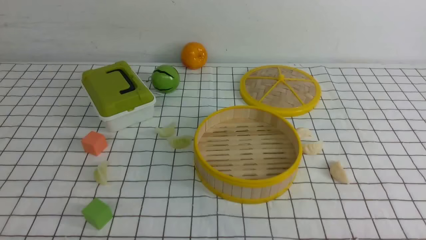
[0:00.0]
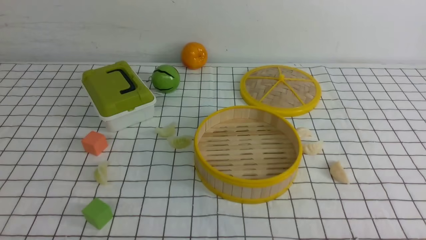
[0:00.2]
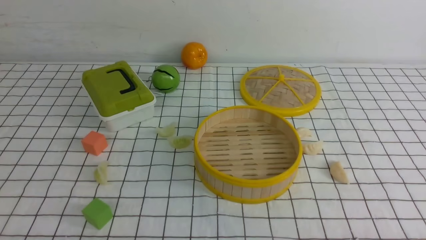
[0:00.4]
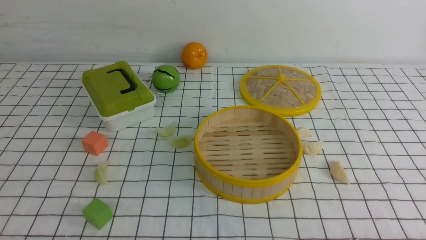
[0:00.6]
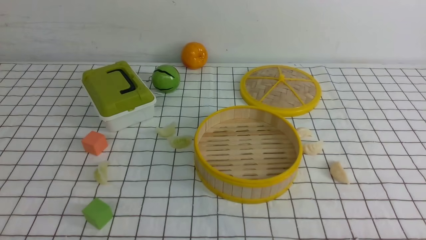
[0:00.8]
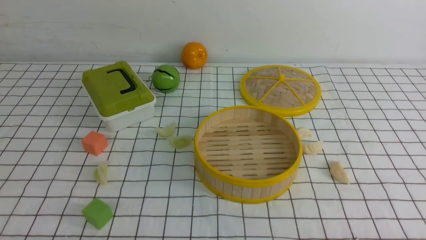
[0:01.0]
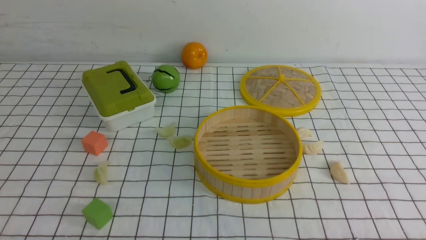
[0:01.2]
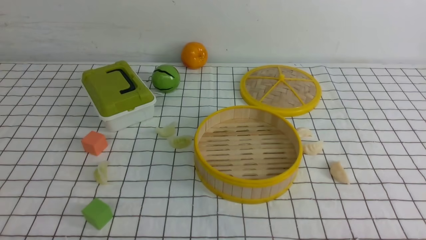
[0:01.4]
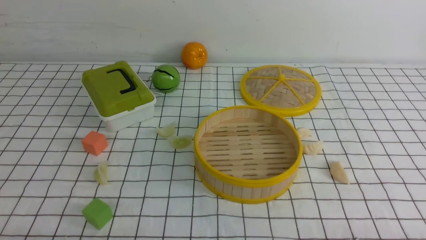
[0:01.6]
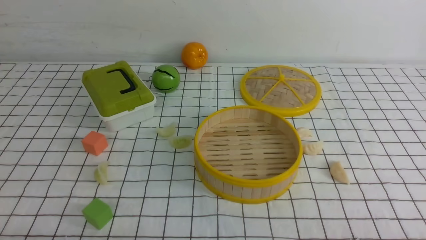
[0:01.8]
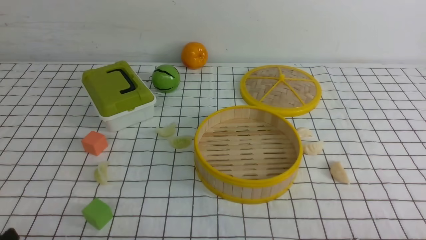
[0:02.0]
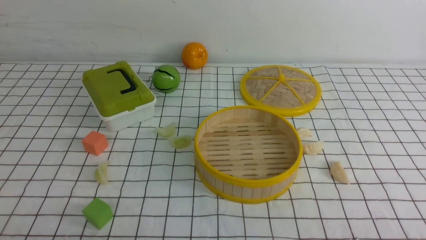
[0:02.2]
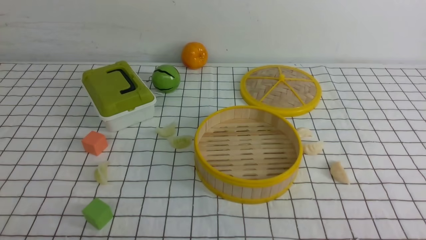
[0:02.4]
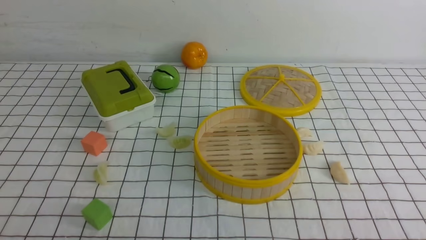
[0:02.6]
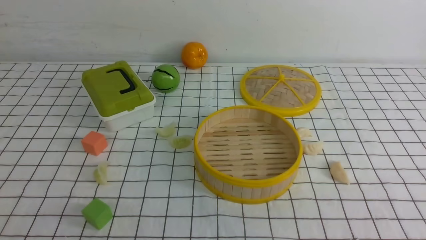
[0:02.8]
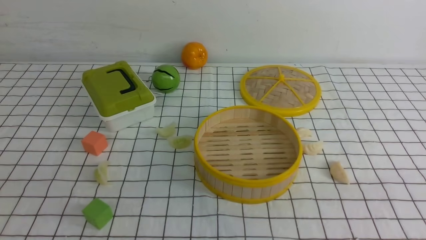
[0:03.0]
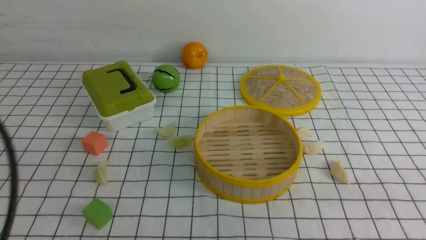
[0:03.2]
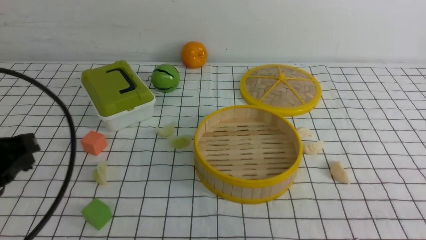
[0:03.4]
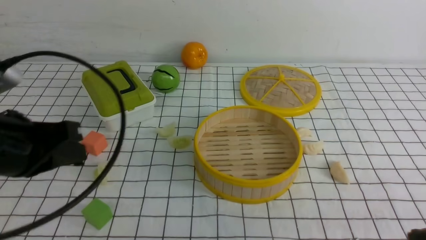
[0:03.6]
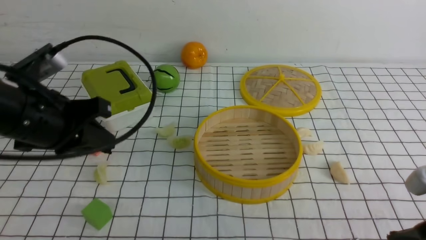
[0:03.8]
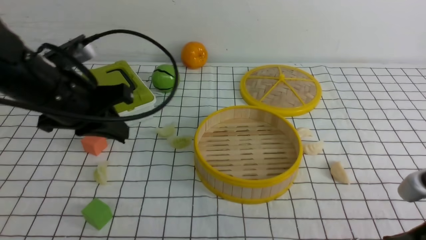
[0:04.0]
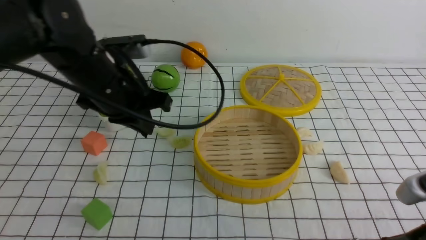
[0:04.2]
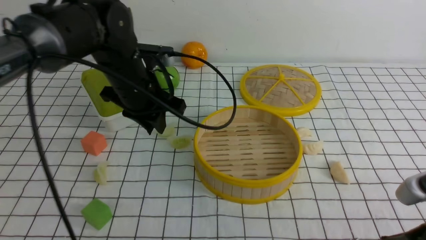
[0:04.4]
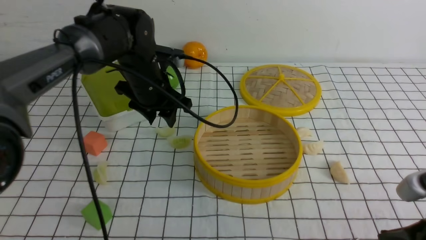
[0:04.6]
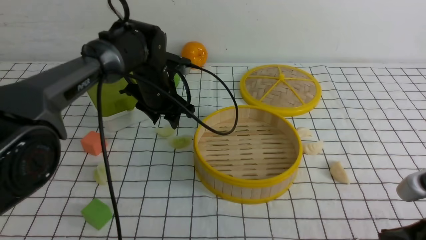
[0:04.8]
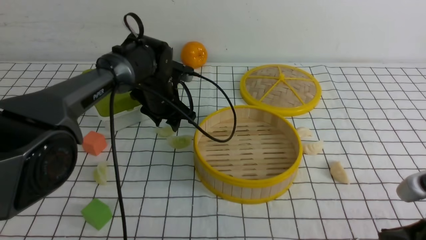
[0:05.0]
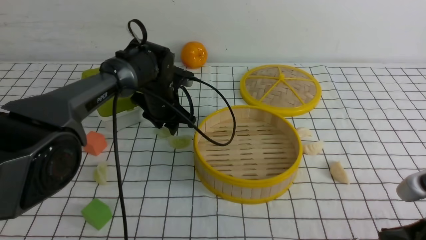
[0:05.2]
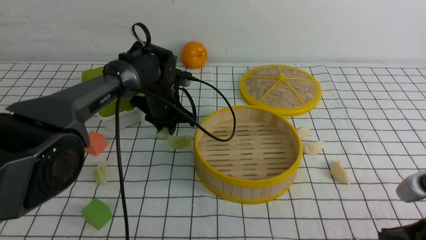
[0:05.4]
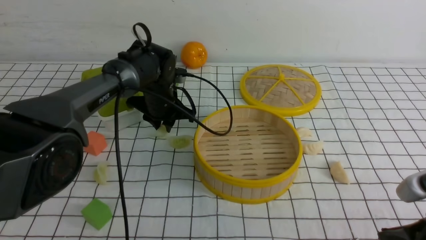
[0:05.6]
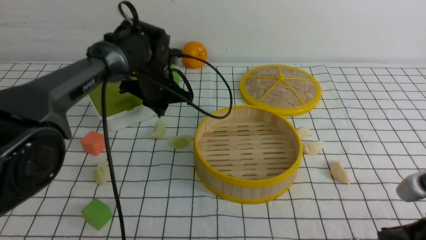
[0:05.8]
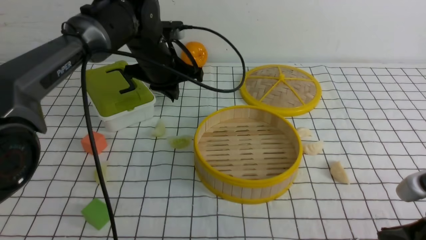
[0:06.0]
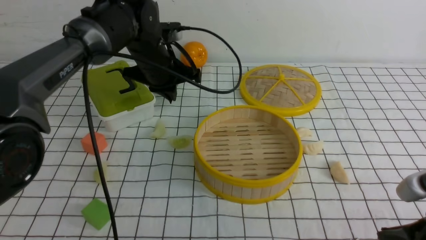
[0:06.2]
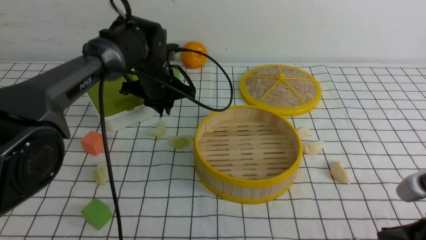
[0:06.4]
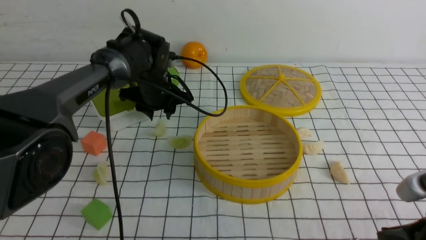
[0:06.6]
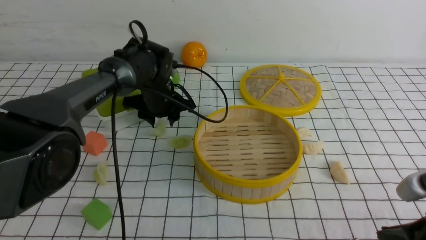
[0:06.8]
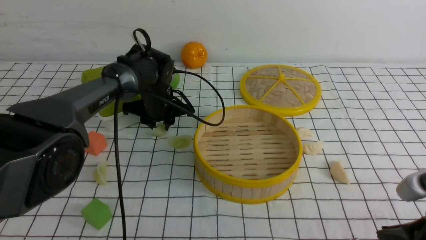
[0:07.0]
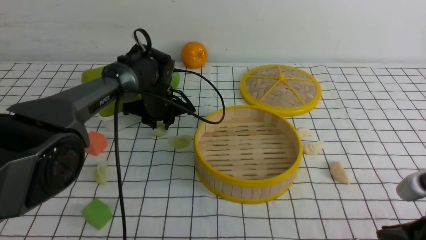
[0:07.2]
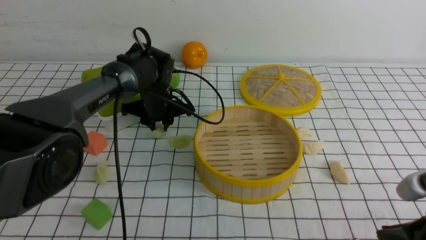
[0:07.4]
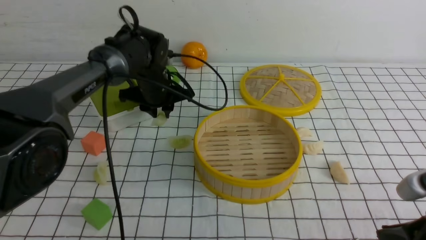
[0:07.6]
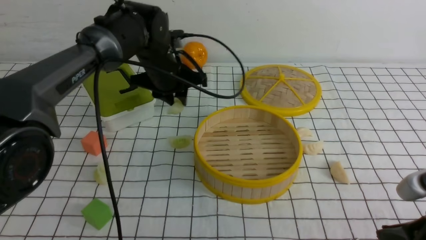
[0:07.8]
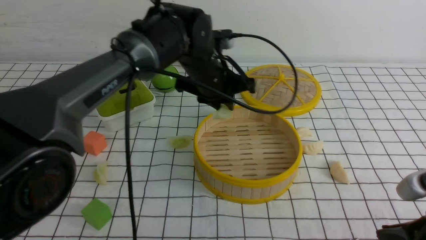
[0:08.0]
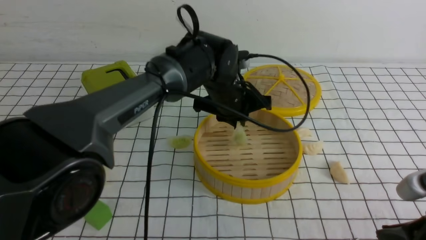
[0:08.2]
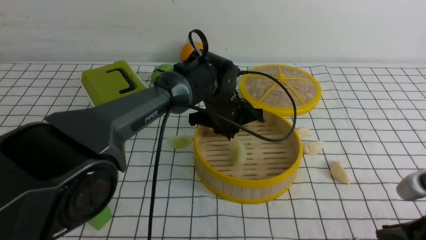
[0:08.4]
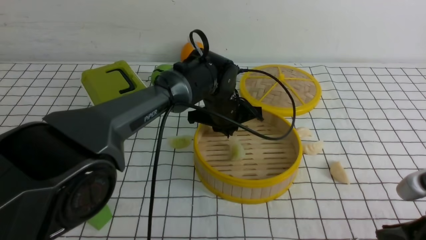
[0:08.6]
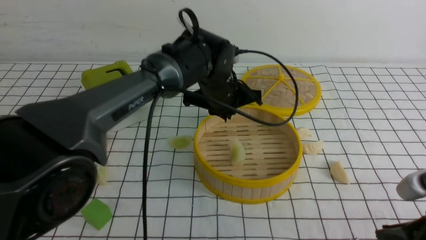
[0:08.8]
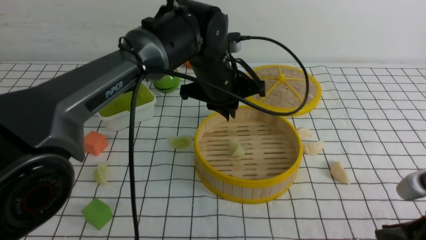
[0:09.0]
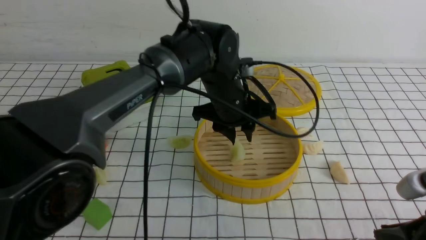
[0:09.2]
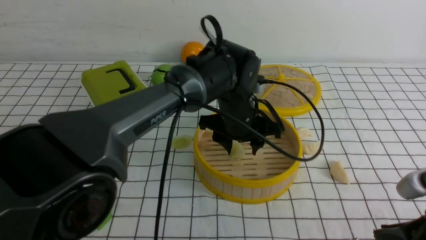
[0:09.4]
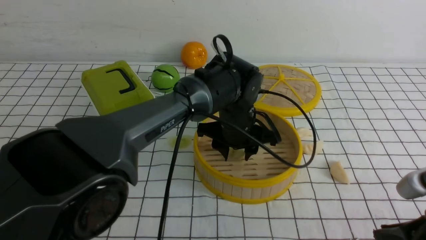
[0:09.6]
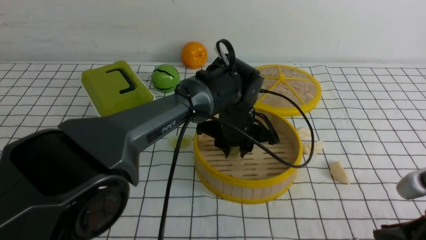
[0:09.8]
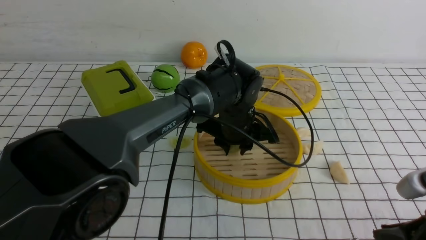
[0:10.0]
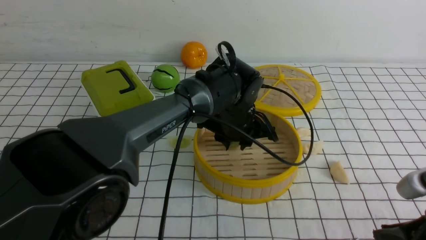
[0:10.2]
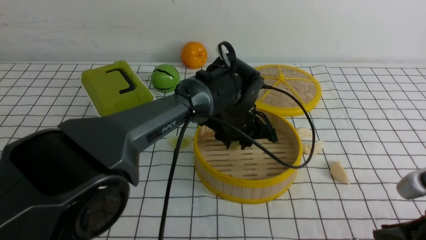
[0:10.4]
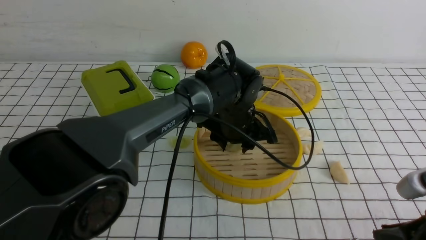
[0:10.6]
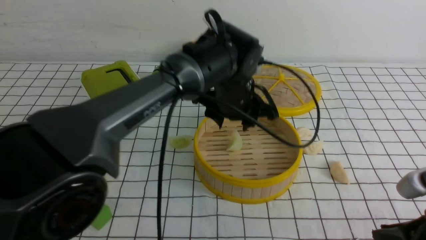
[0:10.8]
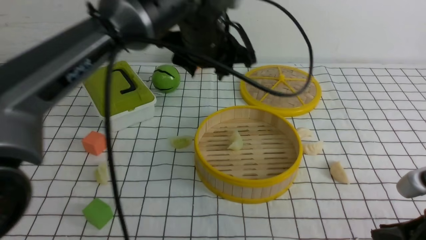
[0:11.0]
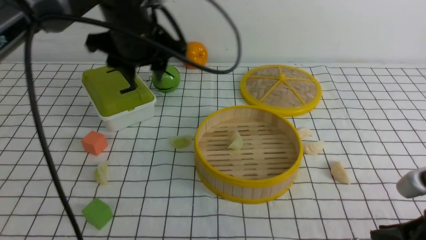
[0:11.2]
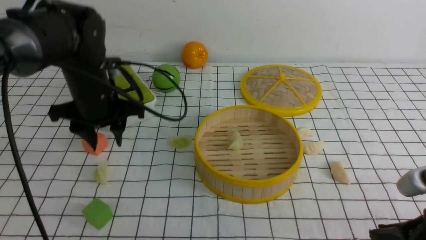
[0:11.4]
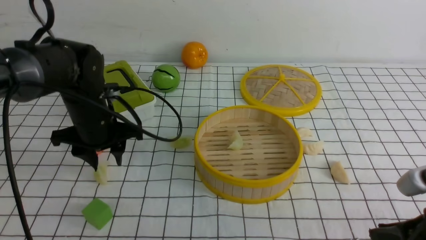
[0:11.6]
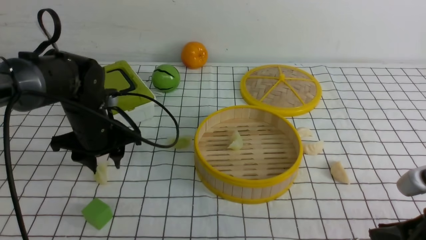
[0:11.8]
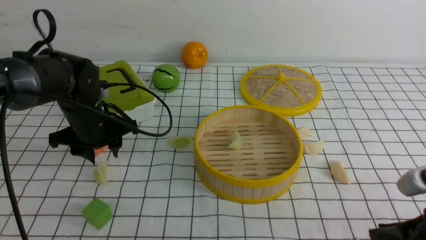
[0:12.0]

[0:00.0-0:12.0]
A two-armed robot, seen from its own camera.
Task of the whole recording: put the dumplings into the steamer on the table with the white tablecloth.
Step, 0:00.0 to 0:07.4: use the left arm to grab a dumpling.
Step, 0:07.6 to 0:08.8: use the left arm to put the dumpling into the steamer.
0:03.0 to 0:04.4: The right gripper heads downward, forward and to the left, covering roughly 10 cm. Meanwhile the left gripper goes about 35 cm forward and to the right, and opens.
0:04.4 to 0:06.0: The left gripper shifts approximately 5 cm forward, reaches some 10 cm downward, then returns, and closes its fingers.
0:06.0 to 0:07.6: The left gripper opens its fingers.
0:07.6 to 0:09.0: The left gripper goes some 15 cm to the right and backward.
0:09.0 to 0:10.4: The left gripper travels downward by about 5 cm, and opens.
0:10.4 to 0:12.0: The left gripper heads to the left, covering approximately 25 cm.

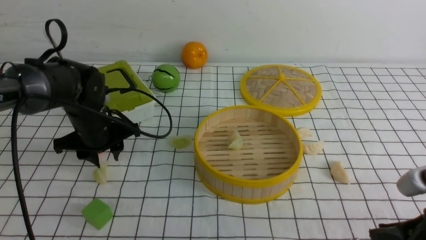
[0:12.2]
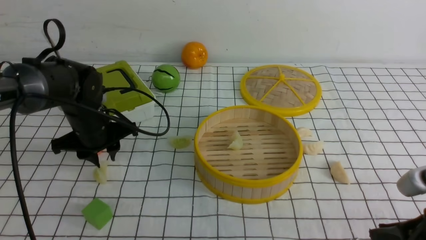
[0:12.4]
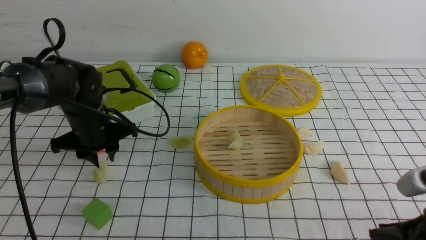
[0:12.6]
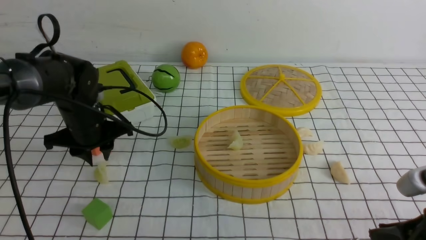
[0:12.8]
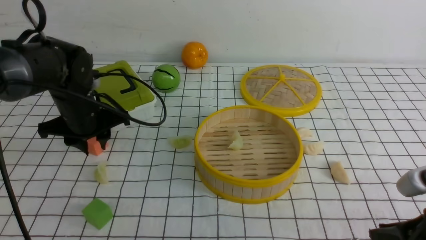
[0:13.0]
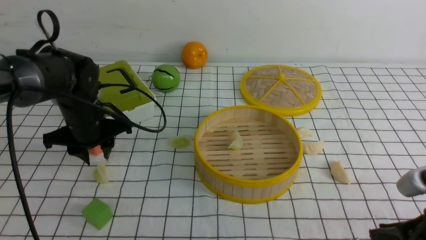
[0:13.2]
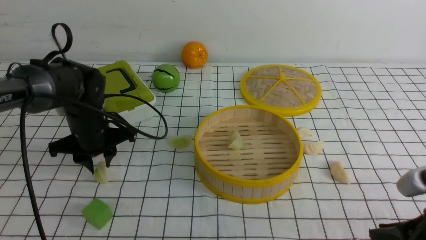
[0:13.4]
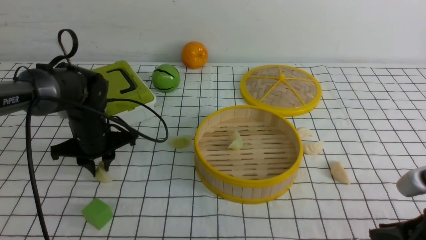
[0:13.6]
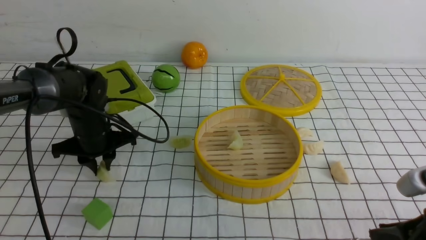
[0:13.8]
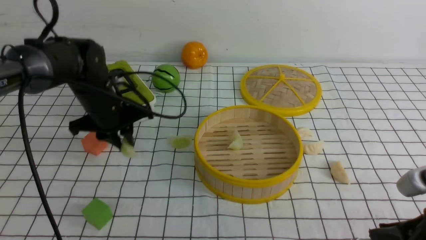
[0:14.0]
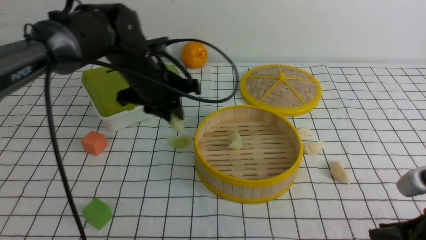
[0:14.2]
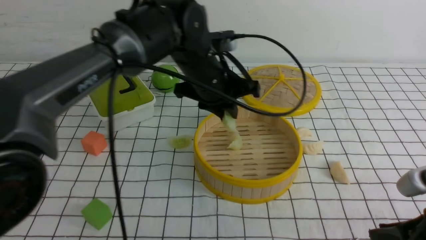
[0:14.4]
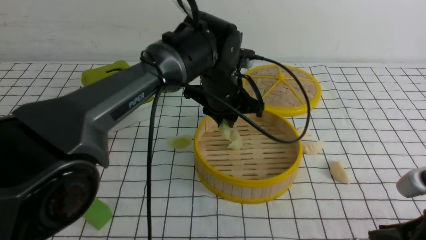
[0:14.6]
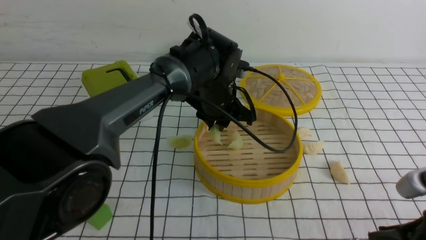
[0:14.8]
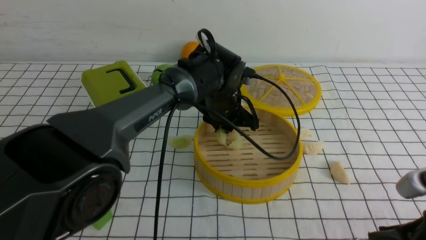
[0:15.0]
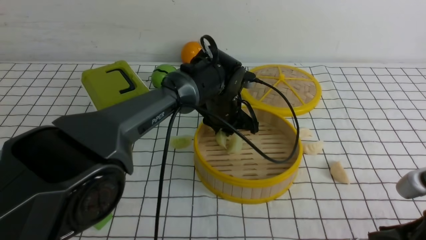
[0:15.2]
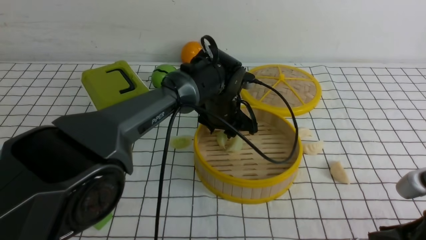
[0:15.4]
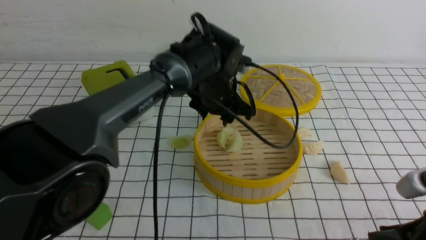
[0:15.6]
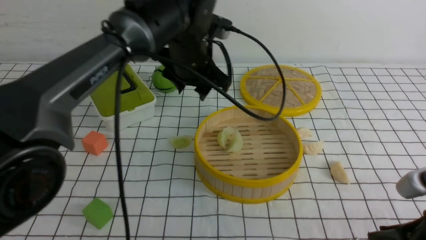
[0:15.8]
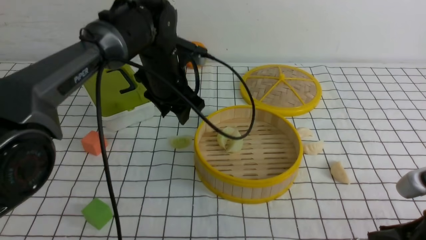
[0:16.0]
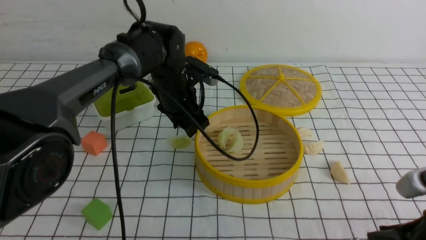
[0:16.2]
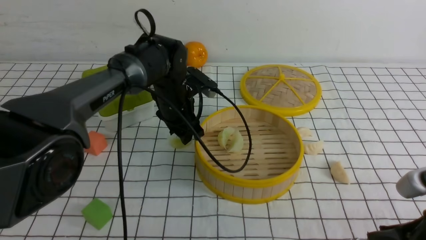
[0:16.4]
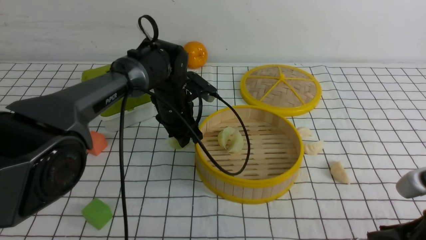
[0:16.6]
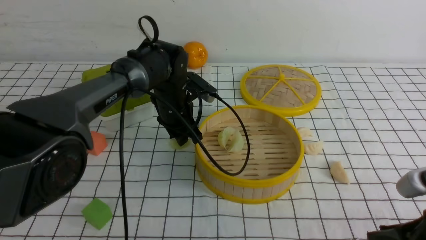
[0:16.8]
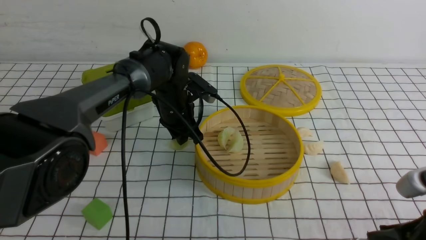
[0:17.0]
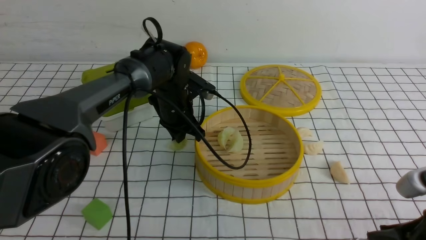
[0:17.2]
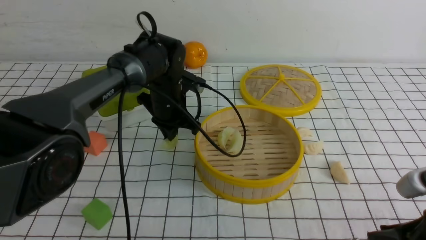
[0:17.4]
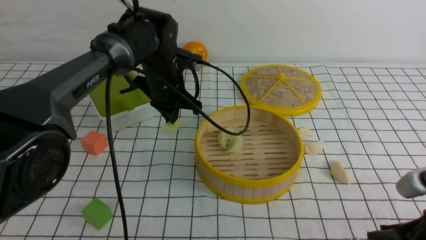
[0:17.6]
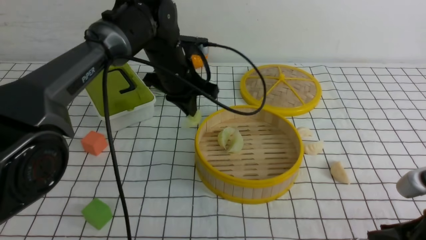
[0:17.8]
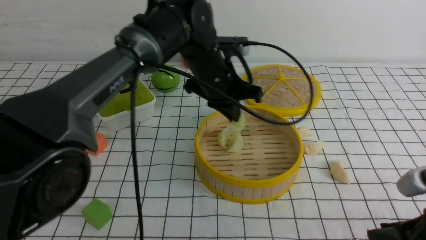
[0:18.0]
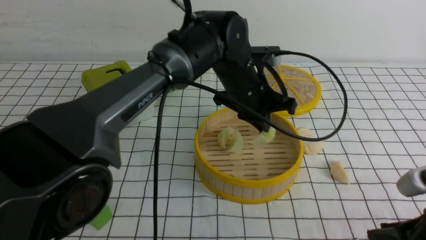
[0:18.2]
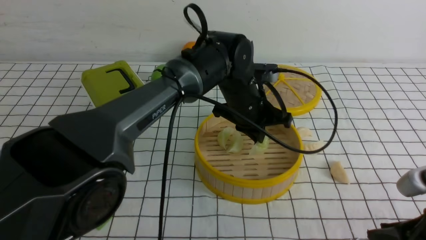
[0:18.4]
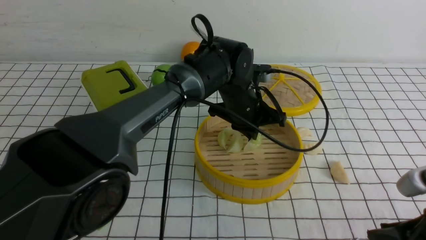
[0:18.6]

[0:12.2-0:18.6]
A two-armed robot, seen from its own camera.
Task of the whole recording: put the dumplings into the steamer on the table with the white tablecloth.
Step, 0:14.2 to 0:15.8: use the left arm to put the dumpling into the steamer.
Step, 0:16.0 to 0:18.0: use the left arm to grab a dumpling.
0:12.2 to 0:13.8: The grippers make only small movements.
0:13.8 to 0:15.4: The left gripper heads to the right, covering some 20 cm, and opens.
0:15.4 to 0:17.0: The left gripper is displaced to the left by approximately 10 cm, and closes its fingers.
0:17.0 to 0:18.6: The left gripper heads to the right, covering approximately 10 cm.
